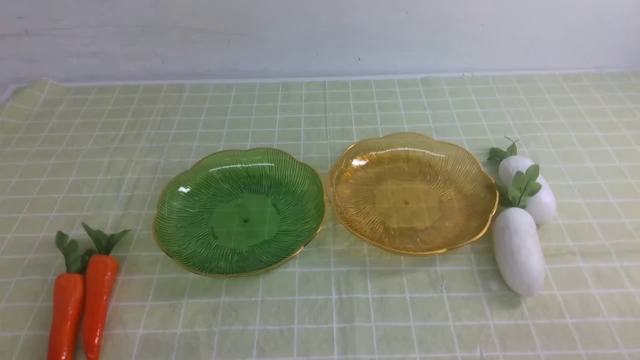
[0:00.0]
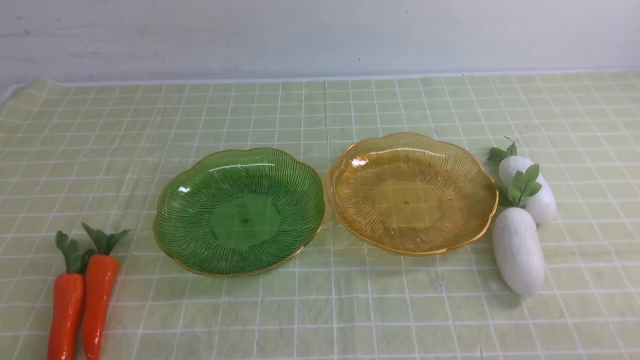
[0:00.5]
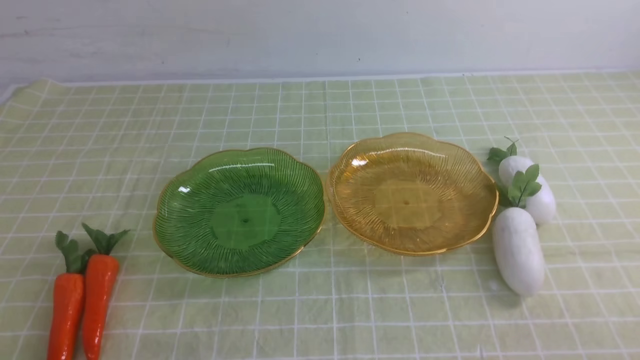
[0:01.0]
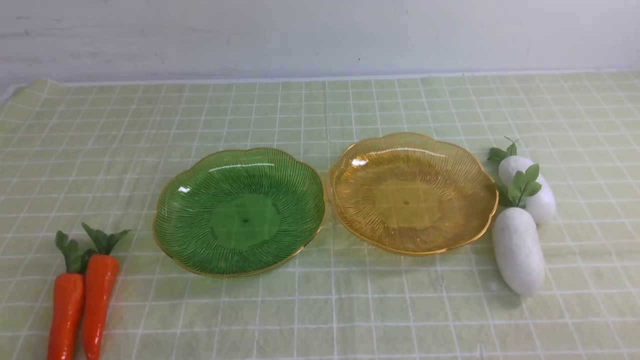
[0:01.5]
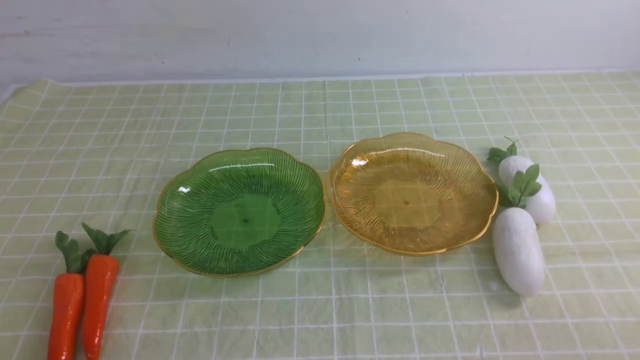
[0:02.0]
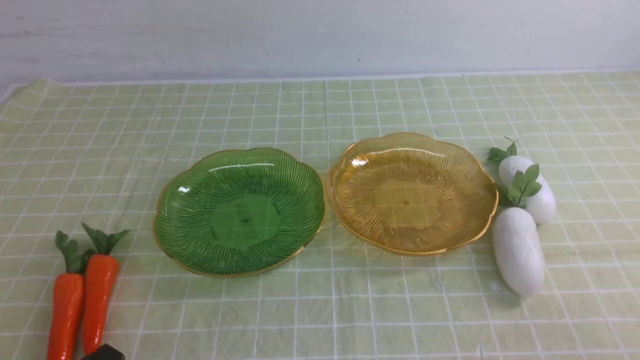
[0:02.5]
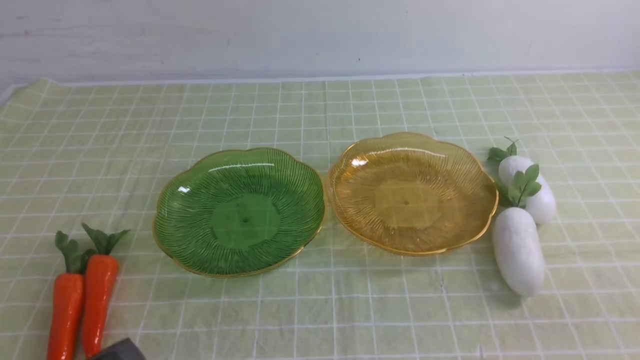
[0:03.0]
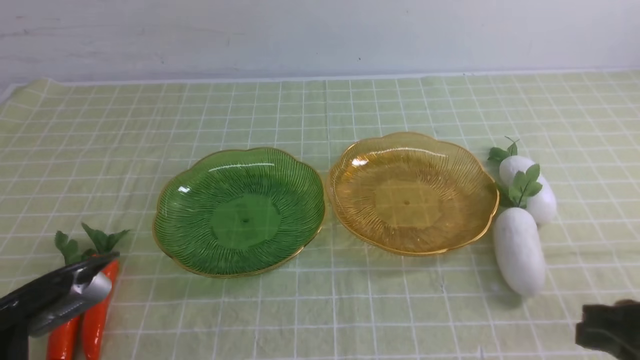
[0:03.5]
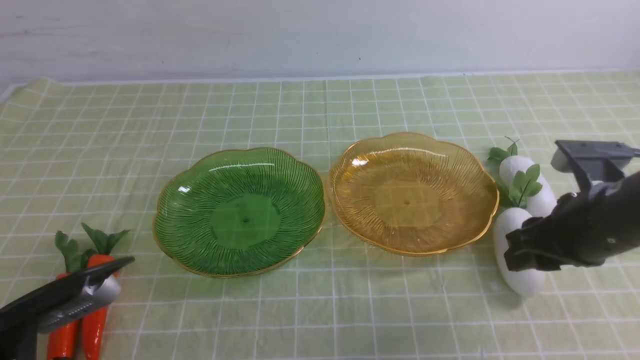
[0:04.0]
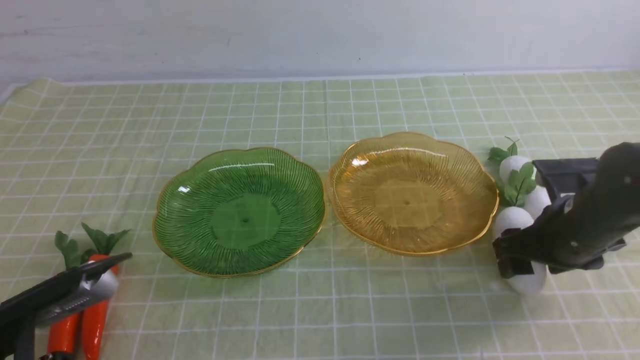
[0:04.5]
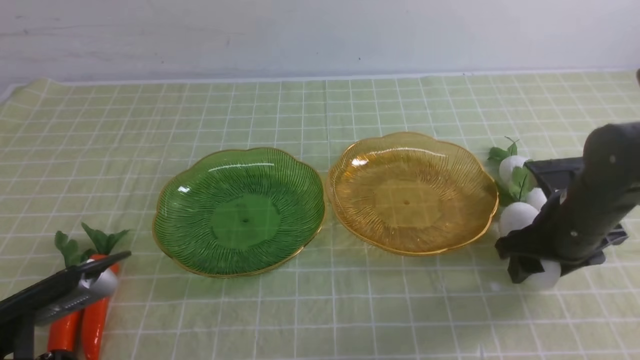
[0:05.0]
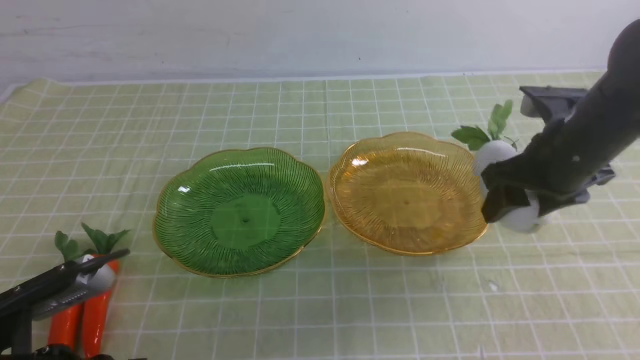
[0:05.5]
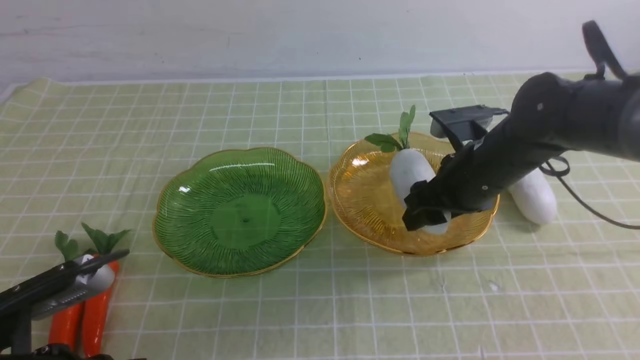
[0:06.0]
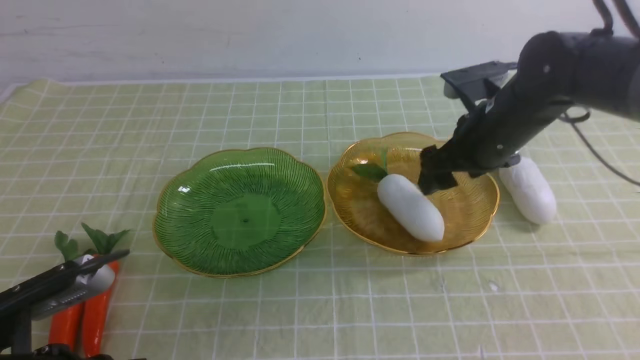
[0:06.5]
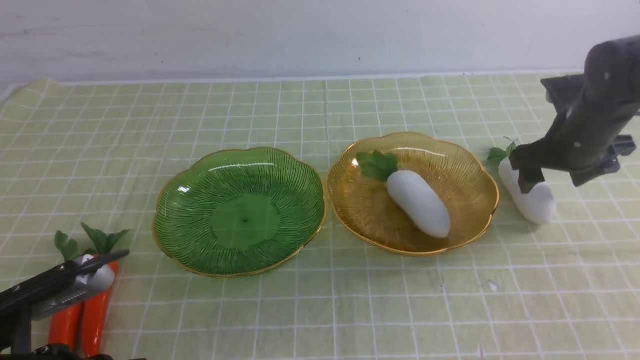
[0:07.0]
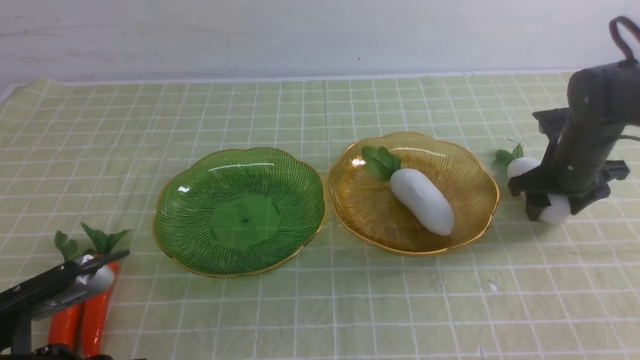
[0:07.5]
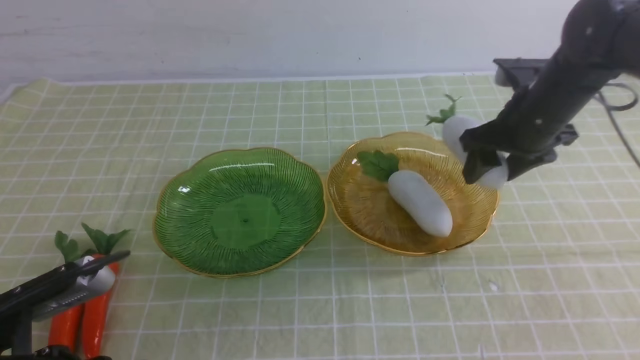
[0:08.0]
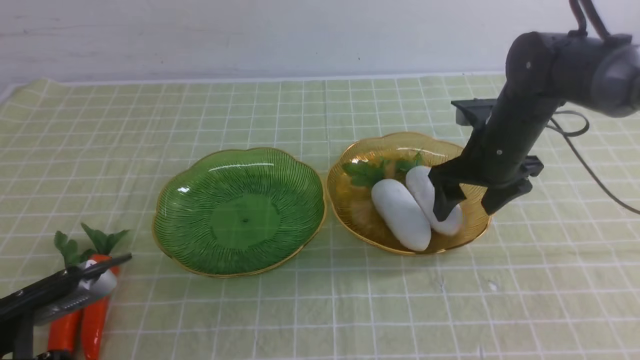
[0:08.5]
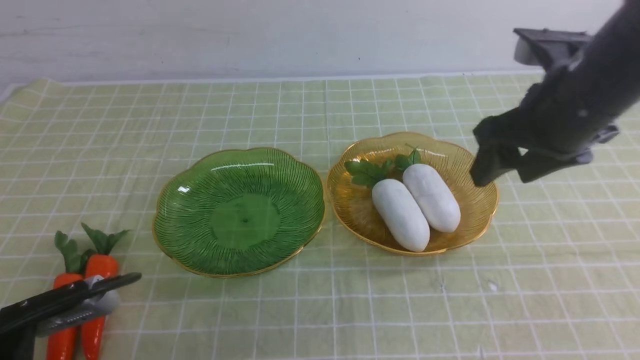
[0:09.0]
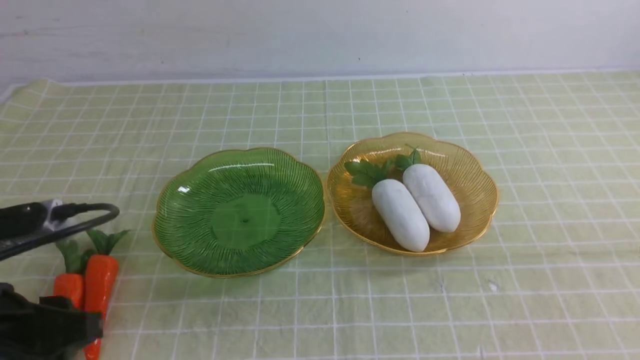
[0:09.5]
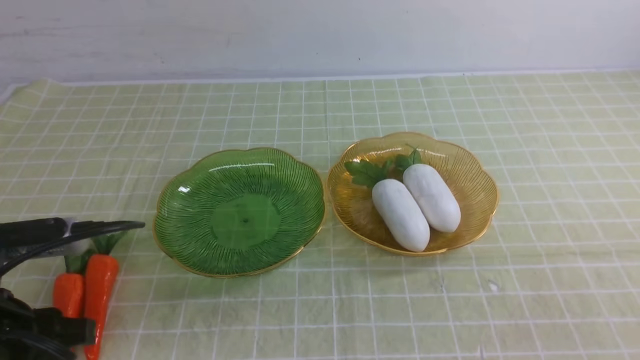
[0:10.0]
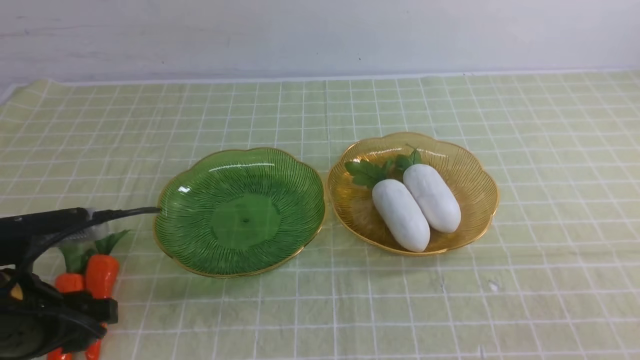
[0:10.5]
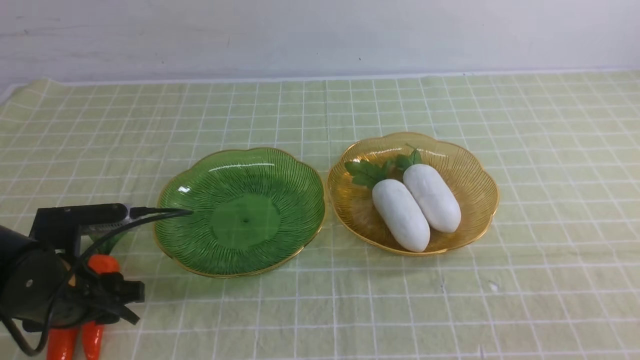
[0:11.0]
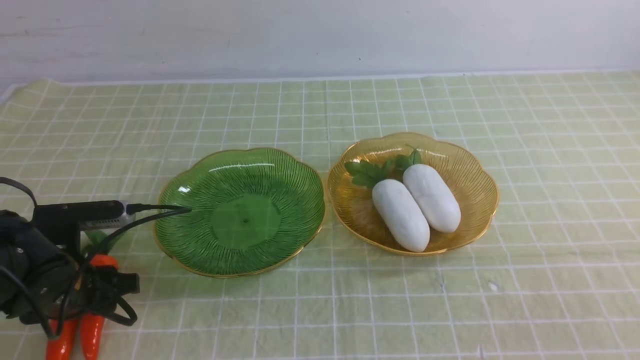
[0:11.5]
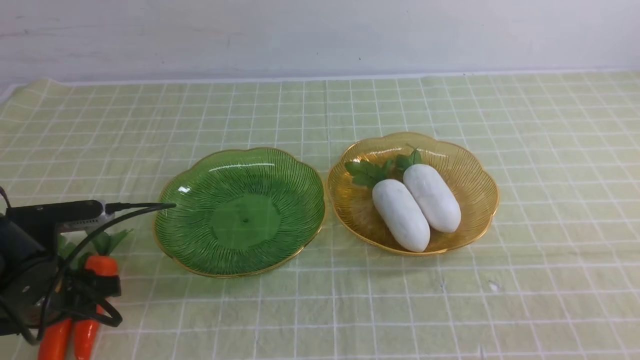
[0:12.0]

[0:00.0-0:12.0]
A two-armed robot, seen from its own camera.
Step, 0:00.0 to 0:08.5: use the right arm to grab a radish and put it into the right plate.
0:02.0 to 0:04.0: The right gripper is displaced forward by roughly 20 cm, and opens its fingers. The left gripper travels forward by some 5 cm.
0:04.0 to 0:06.0: The right gripper shifts about 15 cm forward and to the left.
0:06.0 to 0:08.0: The right gripper moves to the right, about 5 cm.
0:08.0 to 0:10.0: The left gripper moves about 5 cm, and opens its fingers, while the right gripper shifts approximately 35 cm backward, and closes its fingers.
0:10.0 to 0:12.0: The left gripper moves forward and downward, some 10 cm.

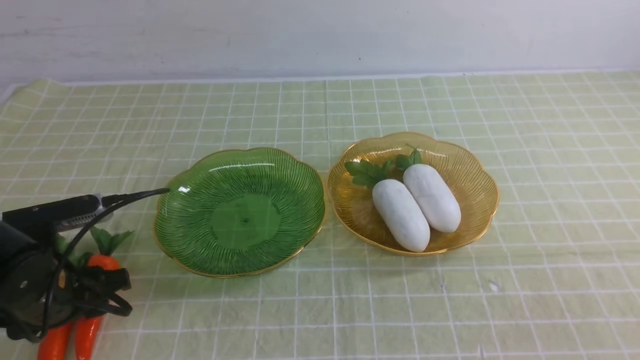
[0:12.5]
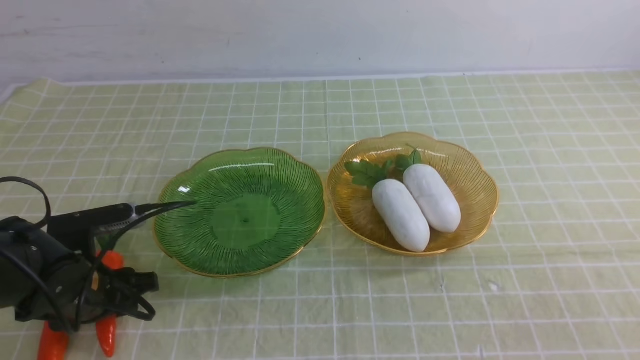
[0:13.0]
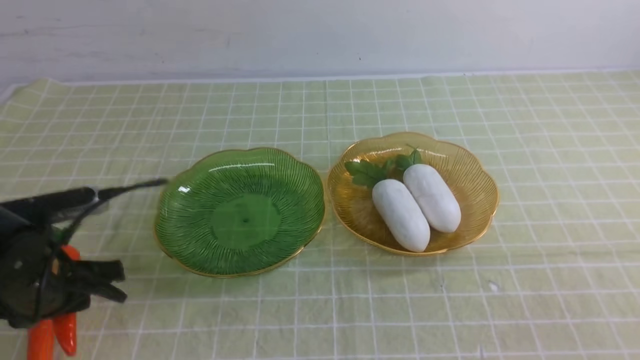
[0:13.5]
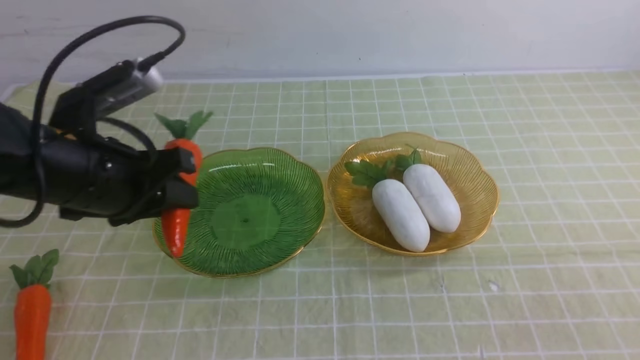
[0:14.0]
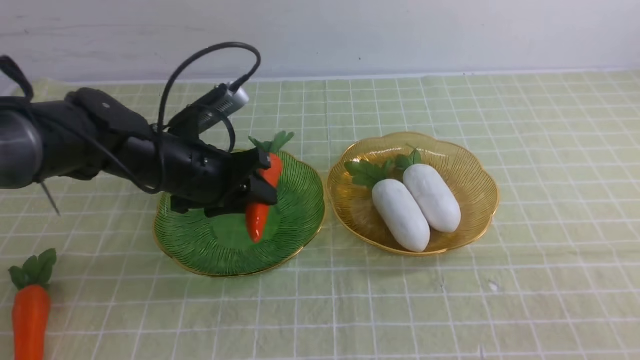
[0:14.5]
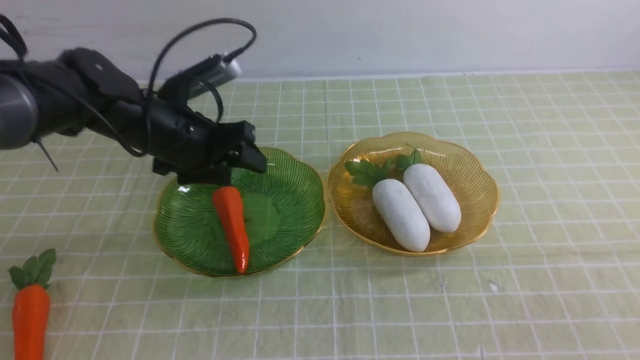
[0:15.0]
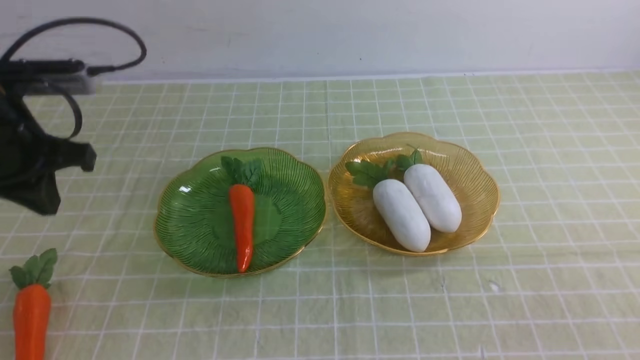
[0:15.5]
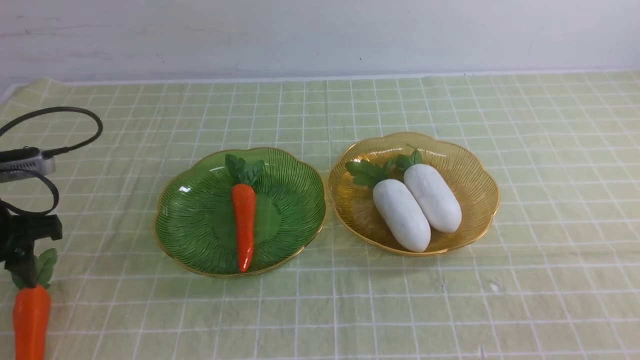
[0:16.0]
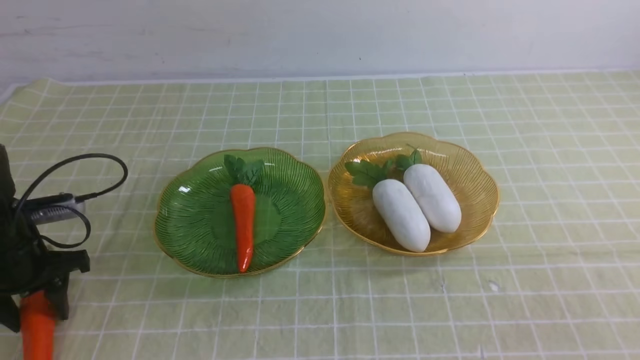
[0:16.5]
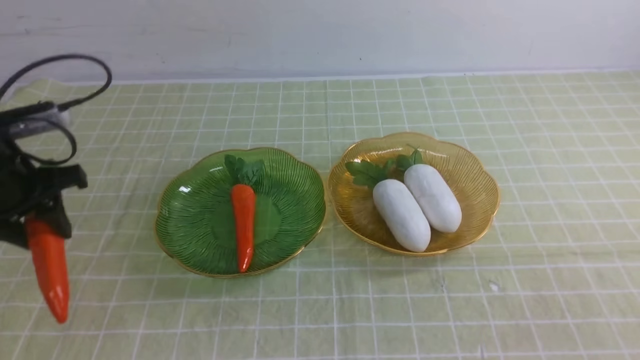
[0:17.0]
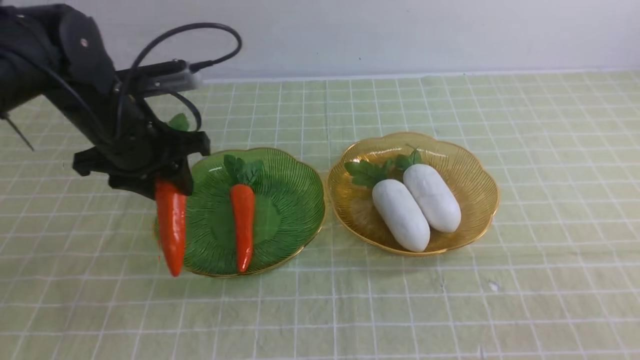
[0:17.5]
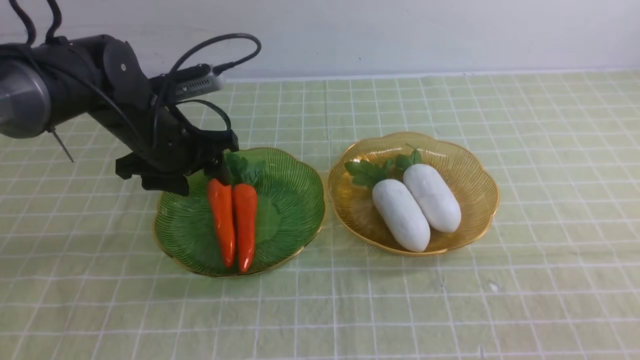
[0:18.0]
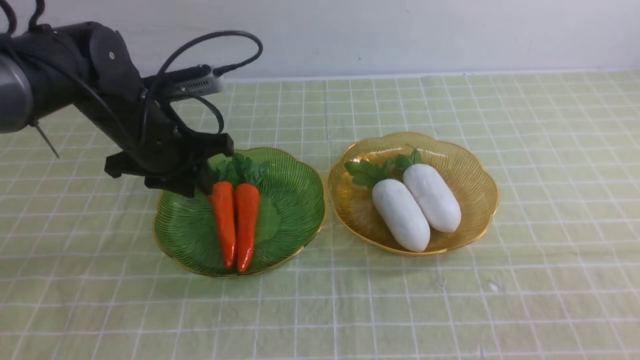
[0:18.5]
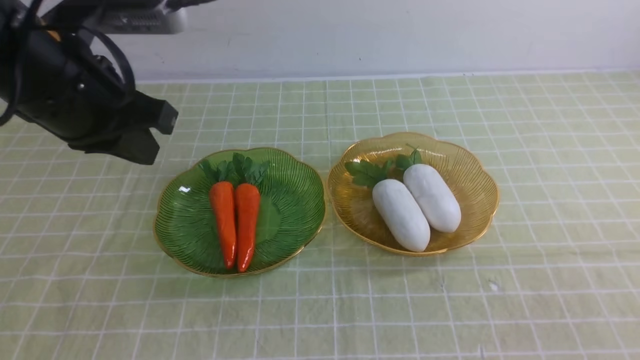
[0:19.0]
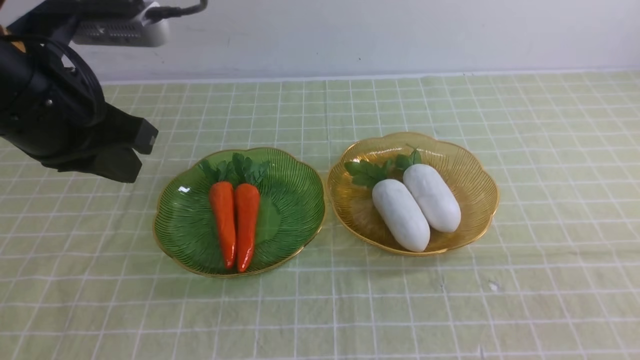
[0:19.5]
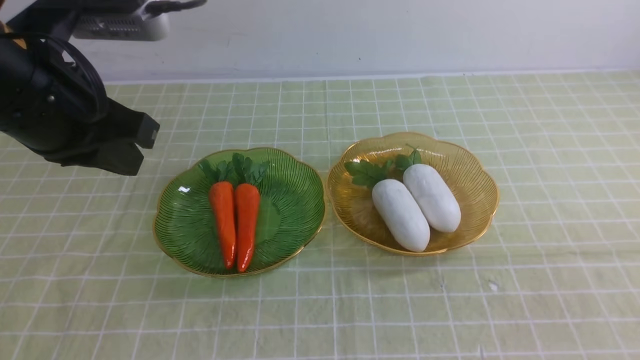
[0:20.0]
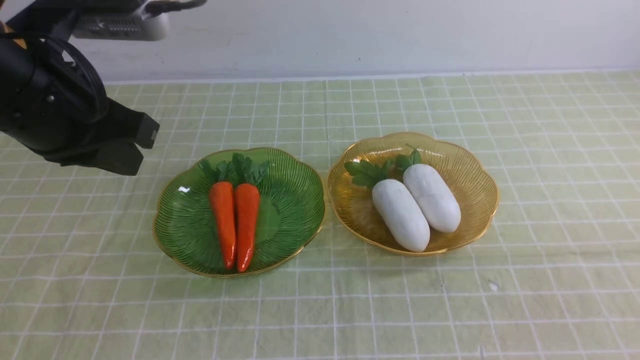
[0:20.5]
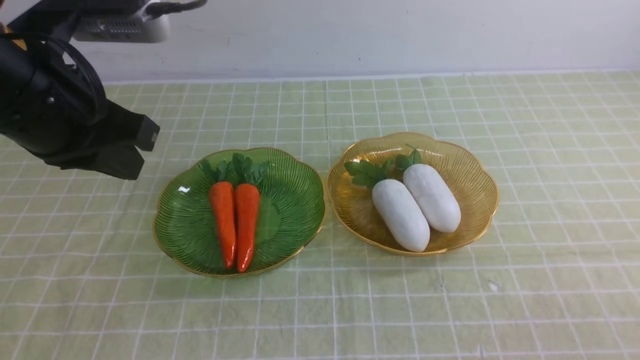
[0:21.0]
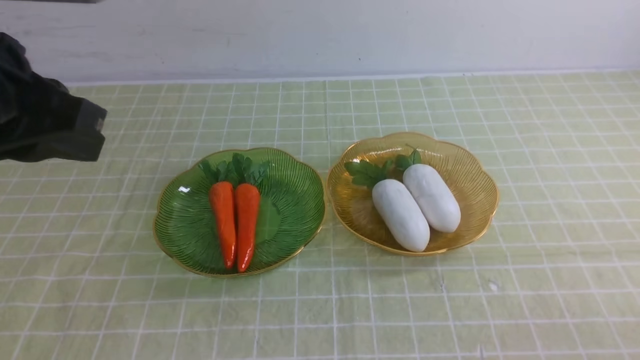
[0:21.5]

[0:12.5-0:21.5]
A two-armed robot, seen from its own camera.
Step, 0:12.5 to 0:18.5: use the left arm to grab a carrot and put it into the left plate.
0:12.5 to 0:14.5: The left gripper is displaced forward and to the right by some 15 cm, and reaches roughly 10 cm upward, then returns.
0:14.5 to 0:17.0: The left gripper shifts roughly 15 cm to the left, and closes, then opens again.
0:17.0 to 0:19.5: The left gripper shifts about 15 cm upward, to the right and backward, and closes up.
0:19.5 to 0:21.5: The left gripper is displaced backward by roughly 5 cm.
